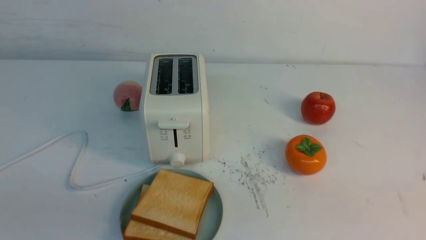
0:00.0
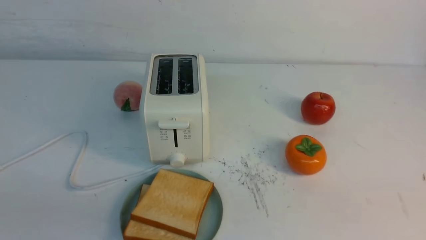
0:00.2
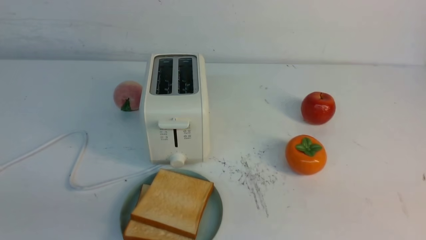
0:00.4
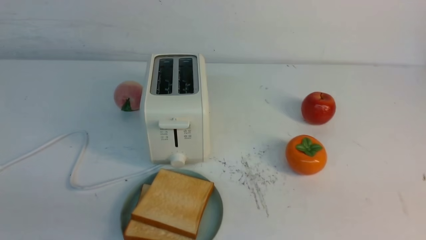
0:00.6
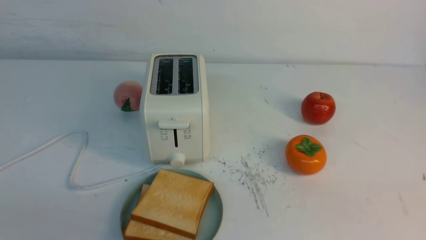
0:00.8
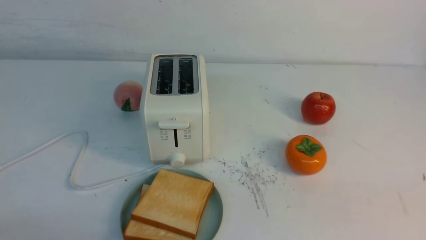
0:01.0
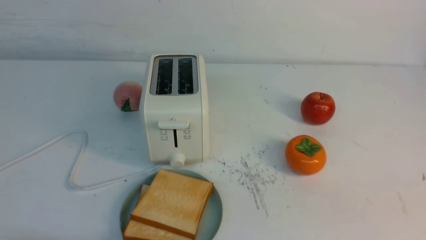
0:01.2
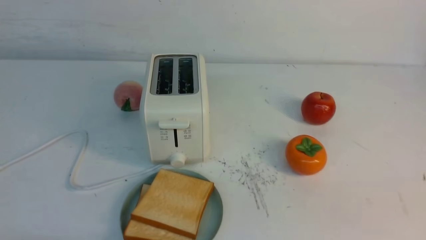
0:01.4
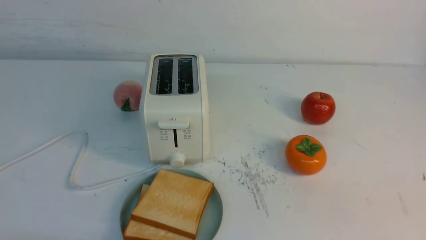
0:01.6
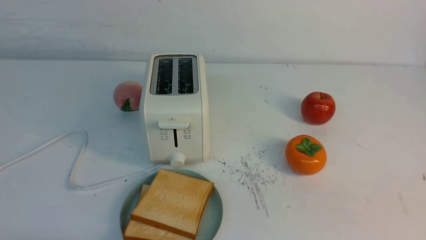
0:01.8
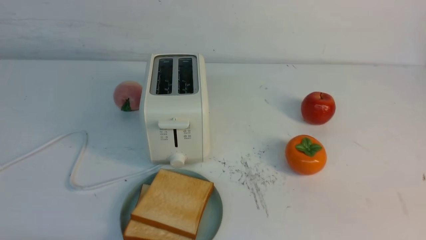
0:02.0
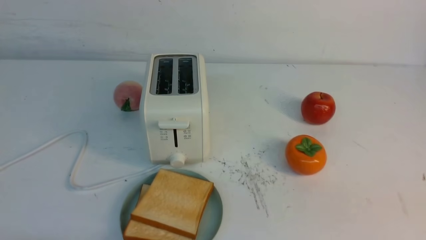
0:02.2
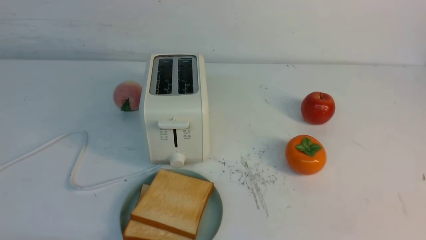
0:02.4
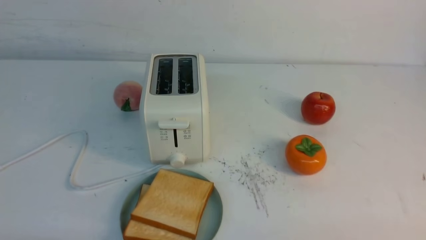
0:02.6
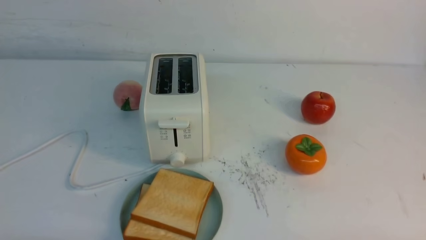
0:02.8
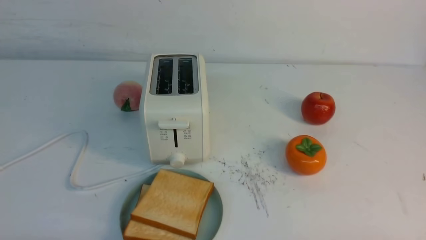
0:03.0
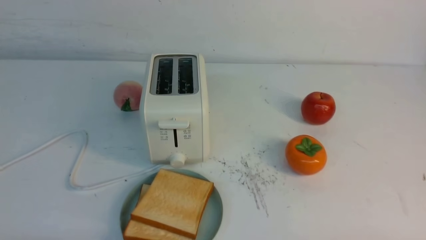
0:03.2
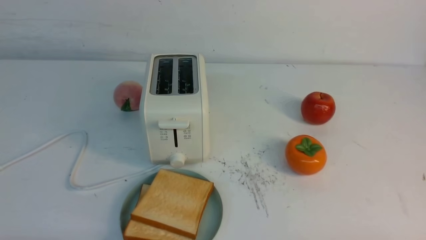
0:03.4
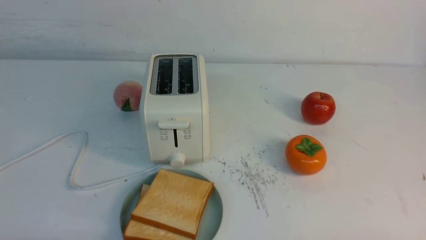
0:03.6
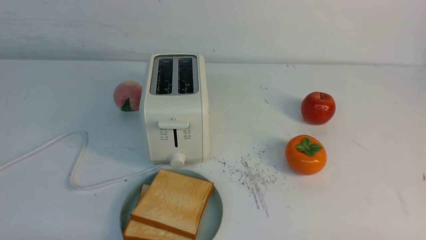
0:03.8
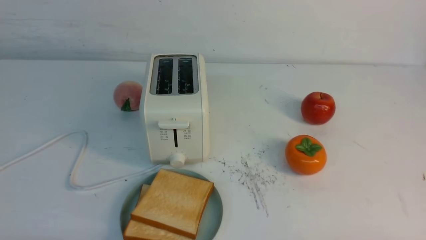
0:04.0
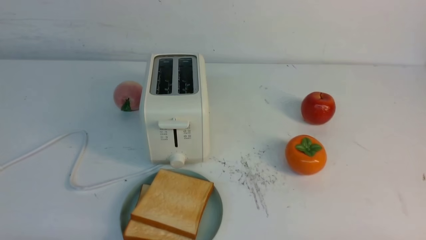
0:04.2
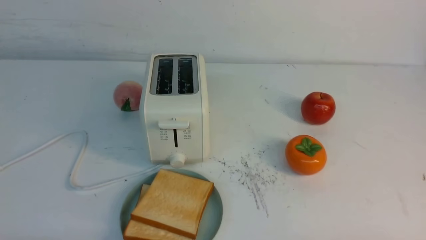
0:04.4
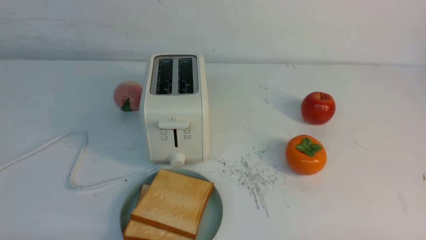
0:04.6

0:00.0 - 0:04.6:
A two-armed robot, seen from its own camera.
Task of the whole recording: take toasted bread from bread machine on white table place on plate.
0:03.0 - 0:04.6: The two grippers keep their place.
